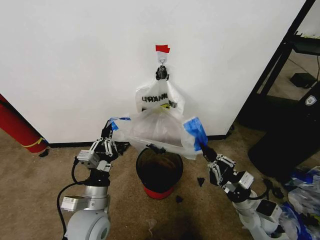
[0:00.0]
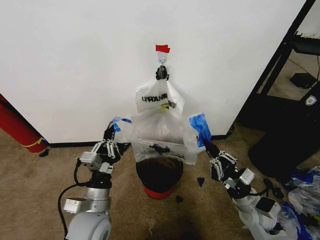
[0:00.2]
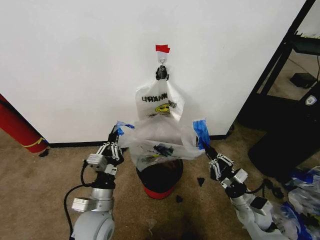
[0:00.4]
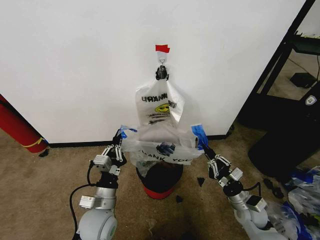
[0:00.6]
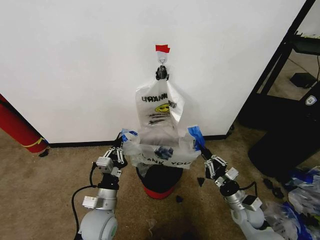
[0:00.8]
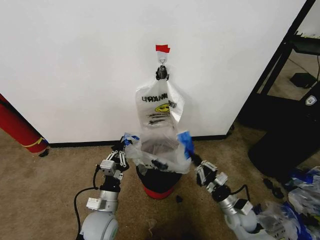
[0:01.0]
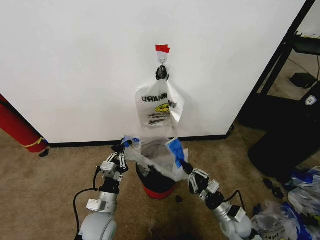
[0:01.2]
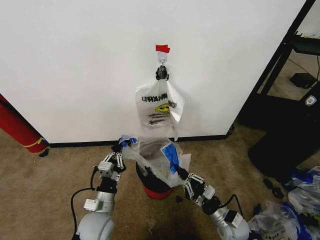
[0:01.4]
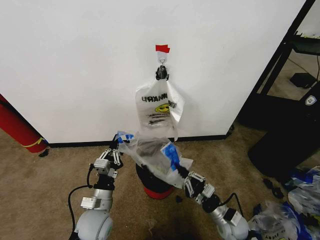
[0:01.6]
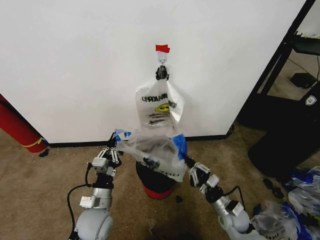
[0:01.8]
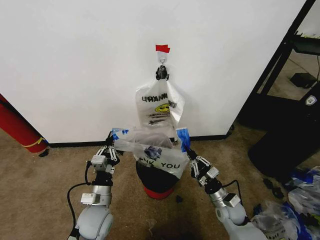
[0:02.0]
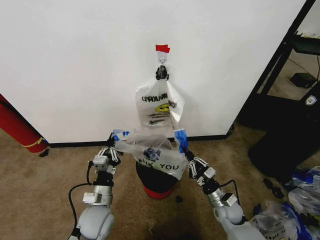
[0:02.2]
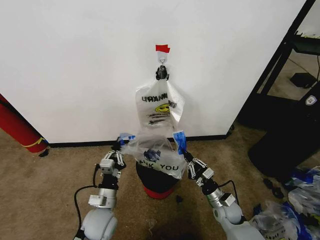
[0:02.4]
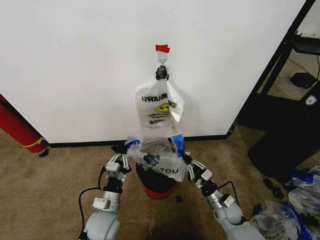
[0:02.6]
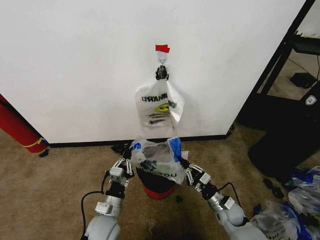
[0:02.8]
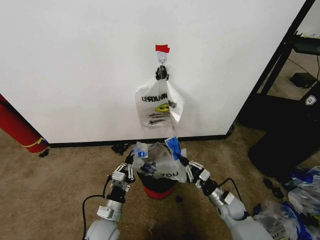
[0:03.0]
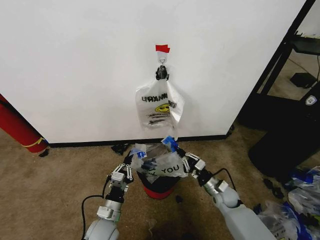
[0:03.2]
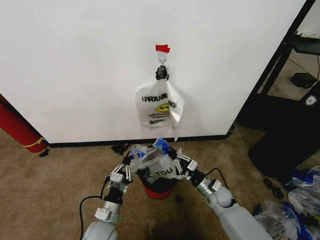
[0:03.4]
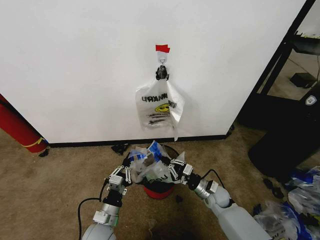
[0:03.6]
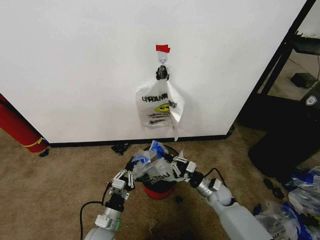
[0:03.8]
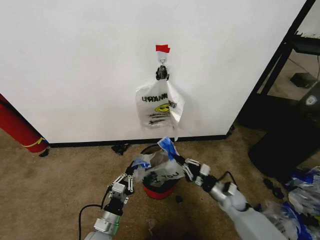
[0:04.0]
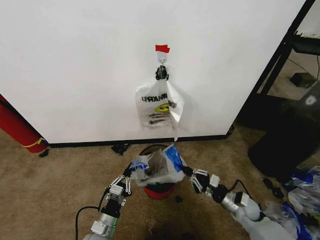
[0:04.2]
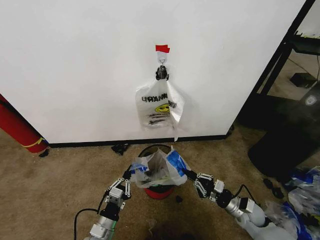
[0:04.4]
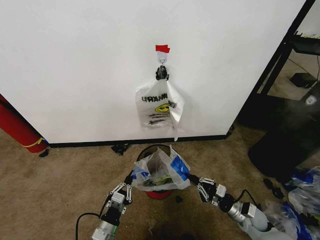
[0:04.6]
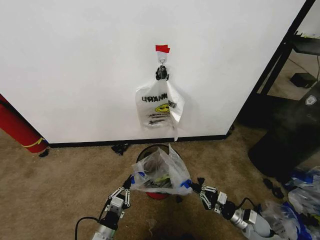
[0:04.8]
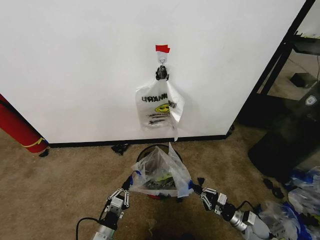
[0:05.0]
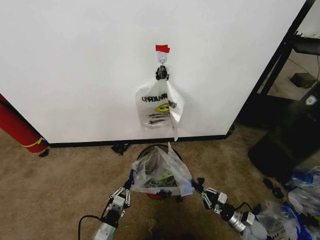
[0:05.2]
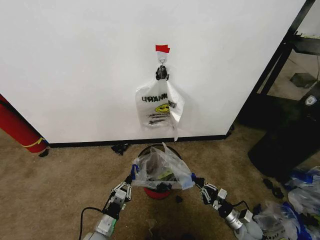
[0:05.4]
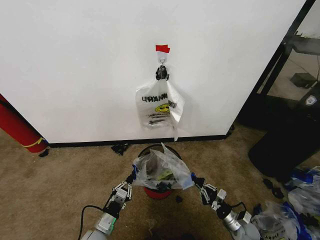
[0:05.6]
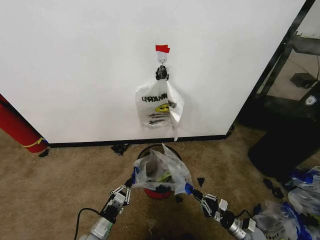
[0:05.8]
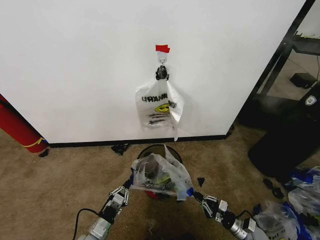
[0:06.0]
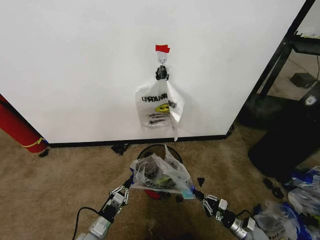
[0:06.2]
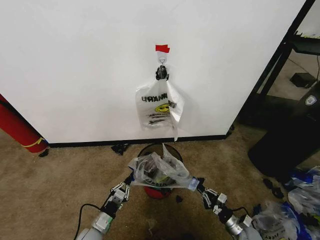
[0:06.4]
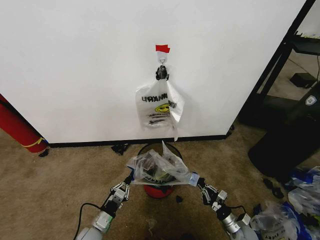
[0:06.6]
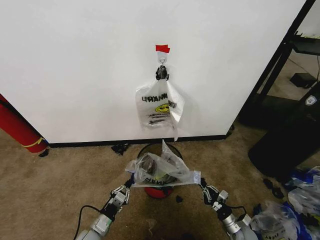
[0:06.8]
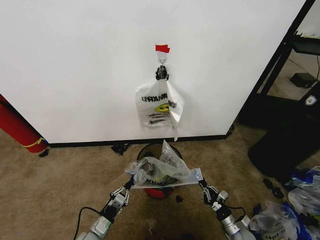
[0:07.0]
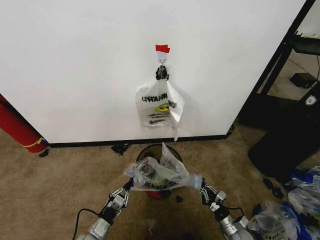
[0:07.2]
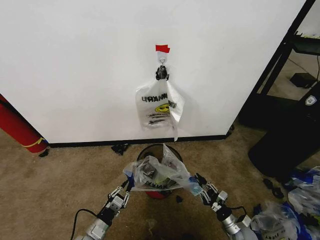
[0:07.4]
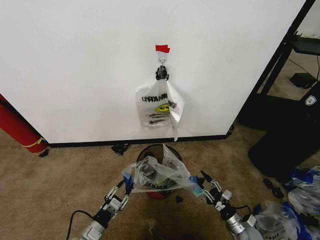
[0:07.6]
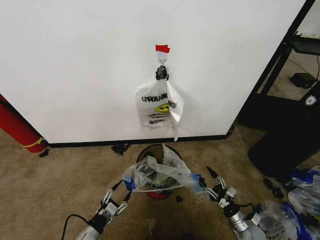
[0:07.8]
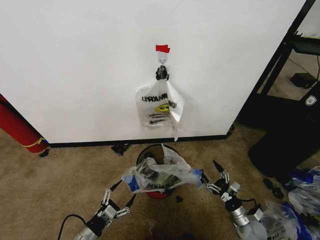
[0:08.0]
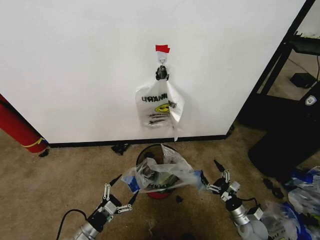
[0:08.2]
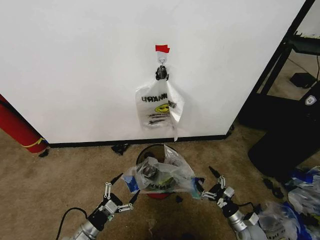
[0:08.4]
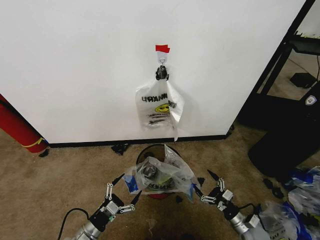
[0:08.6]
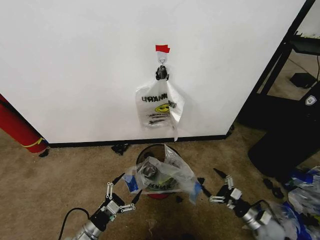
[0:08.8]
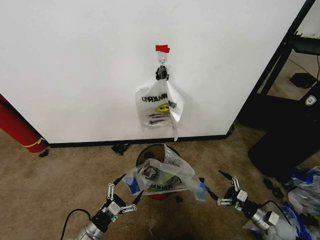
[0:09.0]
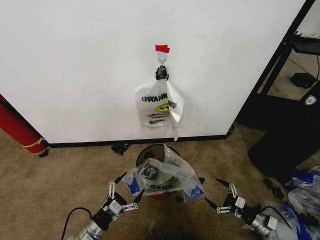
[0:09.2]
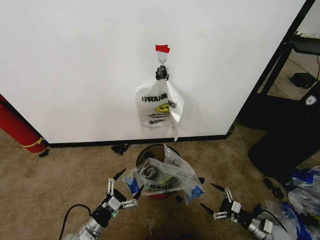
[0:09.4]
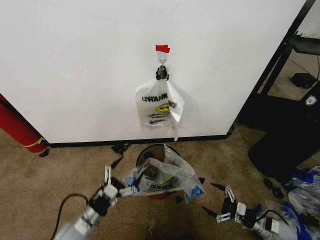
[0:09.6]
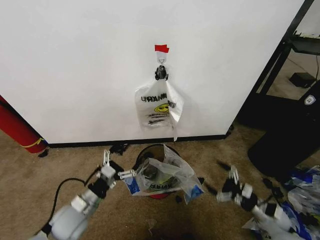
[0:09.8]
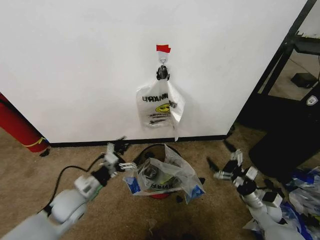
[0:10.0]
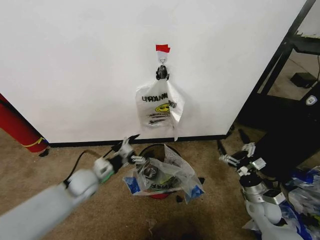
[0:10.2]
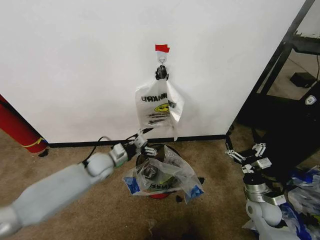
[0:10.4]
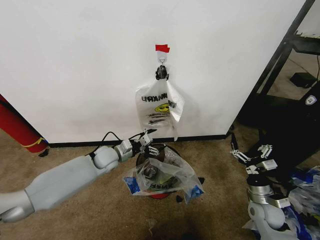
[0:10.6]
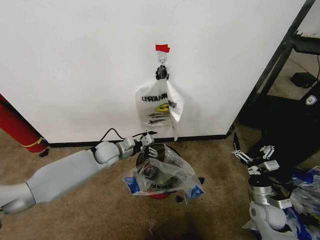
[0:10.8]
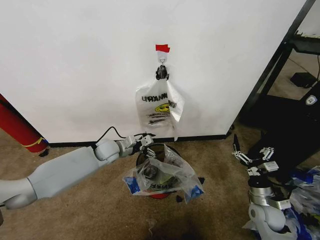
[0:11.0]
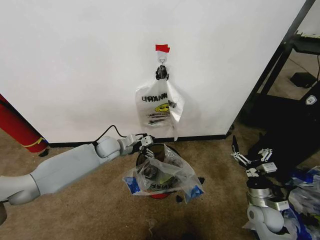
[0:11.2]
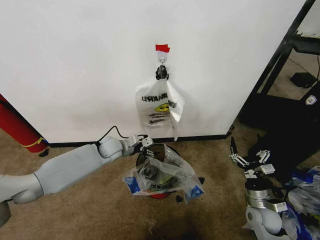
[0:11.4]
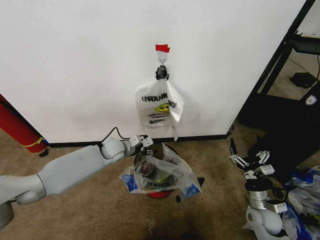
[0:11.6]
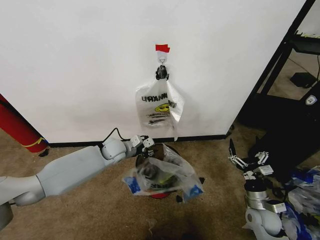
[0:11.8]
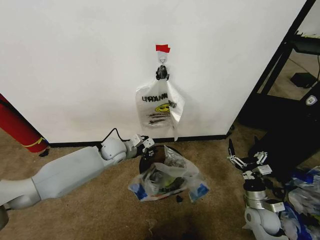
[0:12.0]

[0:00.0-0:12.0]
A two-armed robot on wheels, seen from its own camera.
Task of the whole recording: Pick up the garbage bag from the wall and place it over the trash bin.
0:00.0 to 0:01.6: Both grippers travel together downward, approximately 10 cm.
0:01.6 to 0:03.0: The right gripper travels forward by approximately 5 cm, while the left gripper moves downward, about 5 cm.
0:03.0 to 0:04.4: The left gripper shifts by roughly 5 cm, while the right gripper travels to the right by some 5 cm.
0:04.4 to 0:06.0: The left gripper travels downward by roughly 5 cm. Meanwhile the right gripper moves downward and backward, about 15 cm.
0:06.0 to 0:07.6: The left gripper opens up, while the right gripper opens.
0:07.6 to 0:09.0: The left gripper opens up, while the right gripper travels to the right by some 10 cm, and opens its fingers.
0:09.0 to 0:10.4: The right gripper goes roughly 15 cm upward and to the left; the left gripper goes some 30 cm forward and upward.
0:10.4 to 0:12.0: The left gripper changes place by about 5 cm, and closes up.

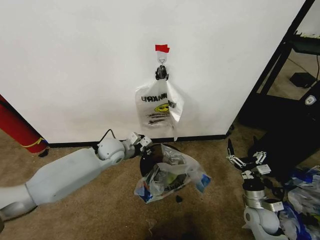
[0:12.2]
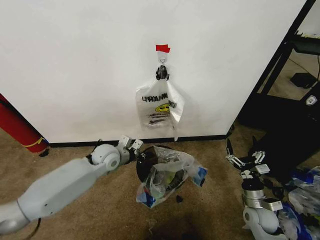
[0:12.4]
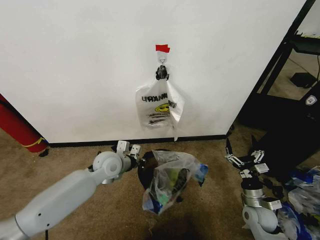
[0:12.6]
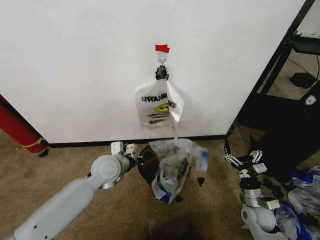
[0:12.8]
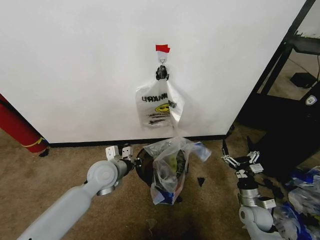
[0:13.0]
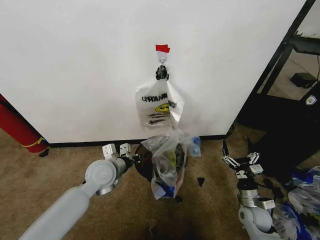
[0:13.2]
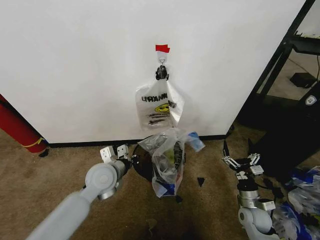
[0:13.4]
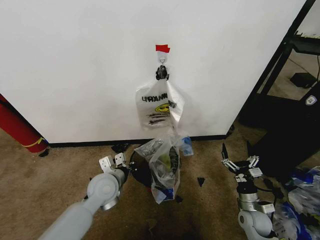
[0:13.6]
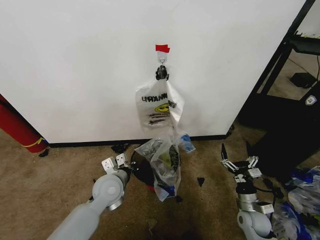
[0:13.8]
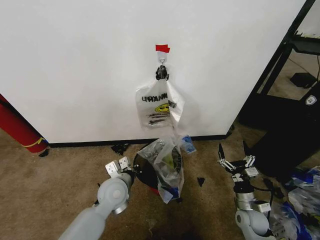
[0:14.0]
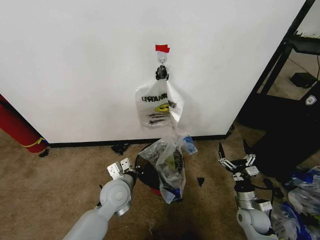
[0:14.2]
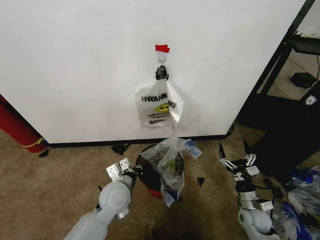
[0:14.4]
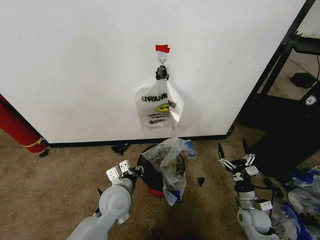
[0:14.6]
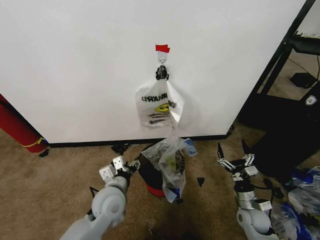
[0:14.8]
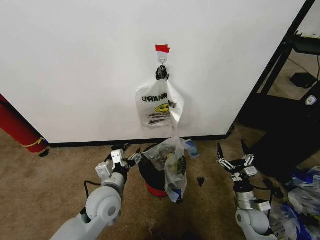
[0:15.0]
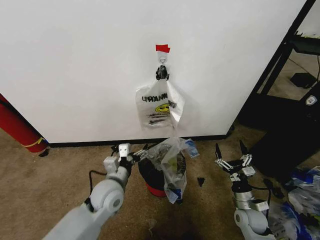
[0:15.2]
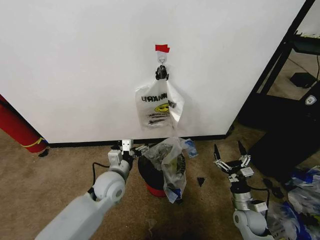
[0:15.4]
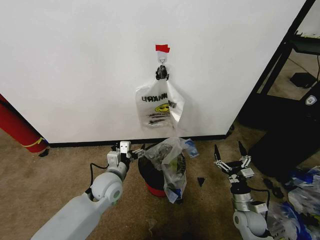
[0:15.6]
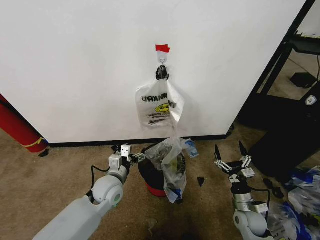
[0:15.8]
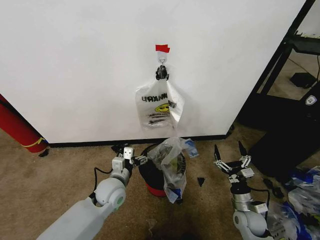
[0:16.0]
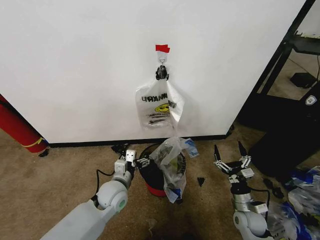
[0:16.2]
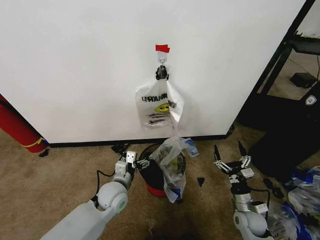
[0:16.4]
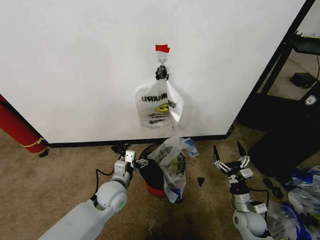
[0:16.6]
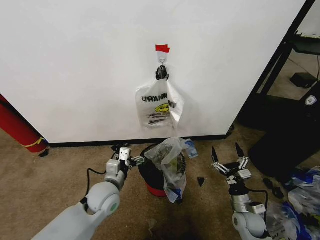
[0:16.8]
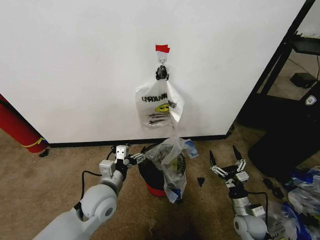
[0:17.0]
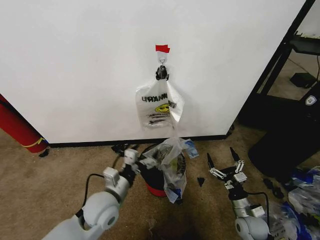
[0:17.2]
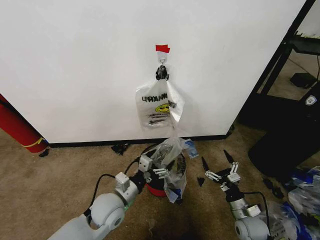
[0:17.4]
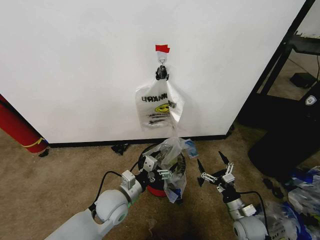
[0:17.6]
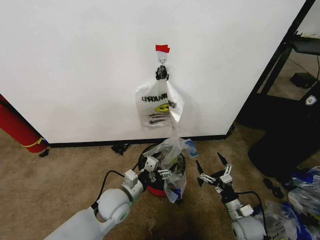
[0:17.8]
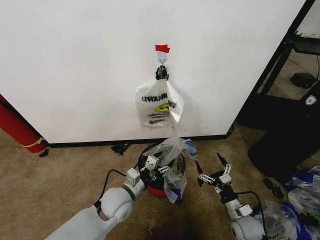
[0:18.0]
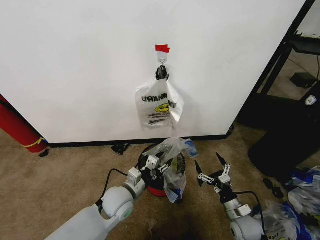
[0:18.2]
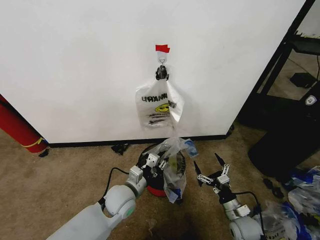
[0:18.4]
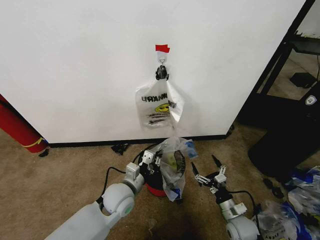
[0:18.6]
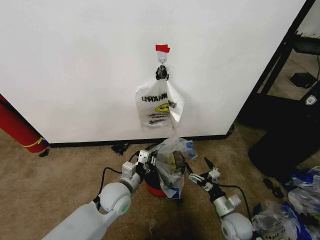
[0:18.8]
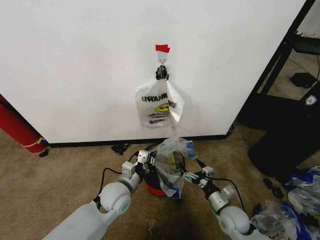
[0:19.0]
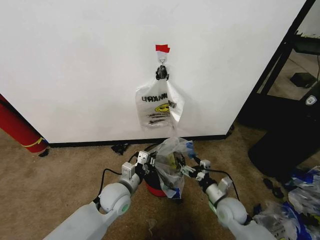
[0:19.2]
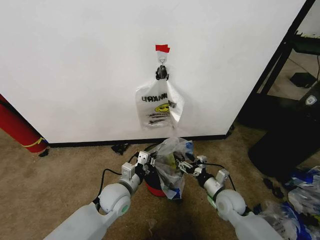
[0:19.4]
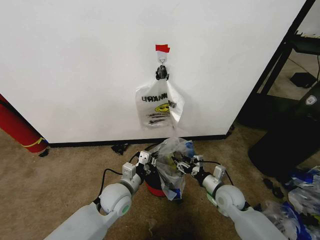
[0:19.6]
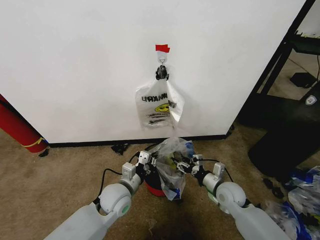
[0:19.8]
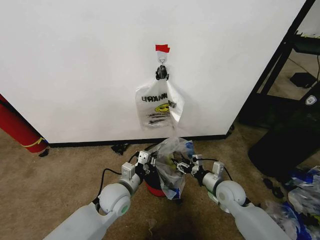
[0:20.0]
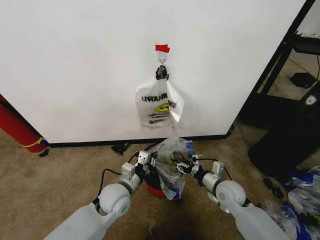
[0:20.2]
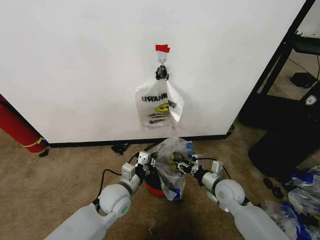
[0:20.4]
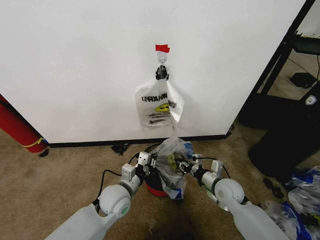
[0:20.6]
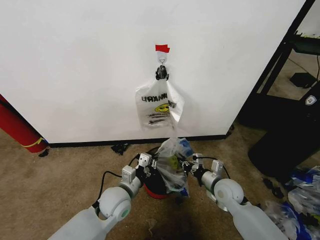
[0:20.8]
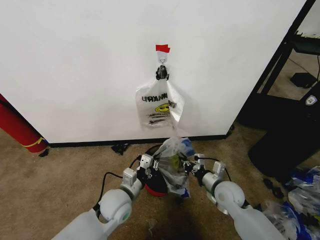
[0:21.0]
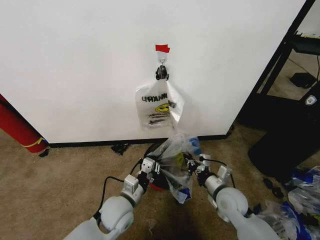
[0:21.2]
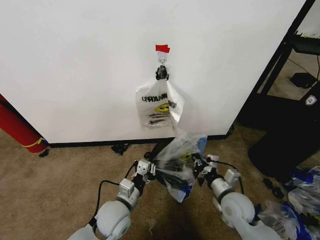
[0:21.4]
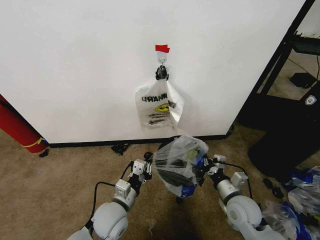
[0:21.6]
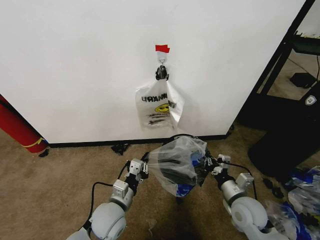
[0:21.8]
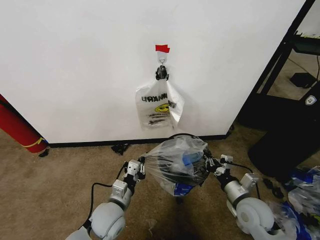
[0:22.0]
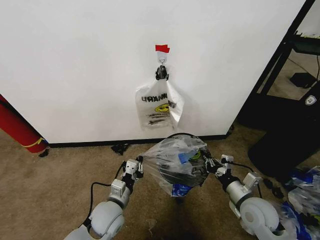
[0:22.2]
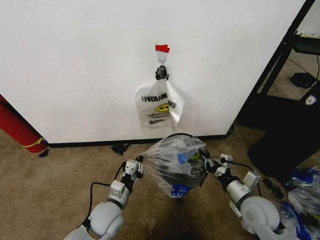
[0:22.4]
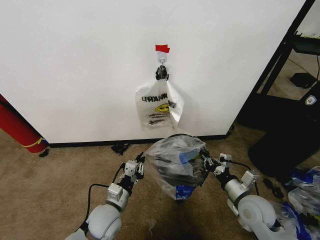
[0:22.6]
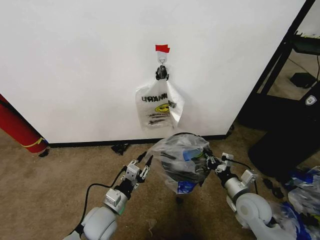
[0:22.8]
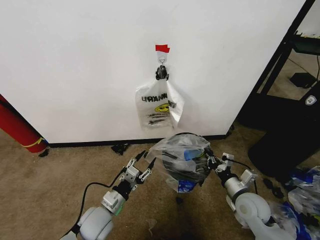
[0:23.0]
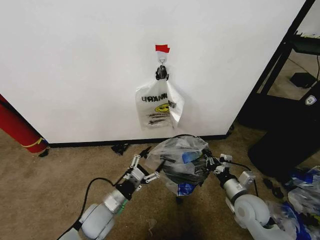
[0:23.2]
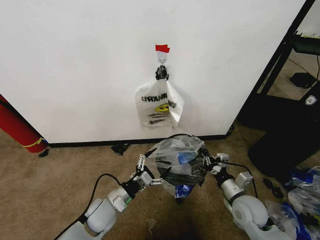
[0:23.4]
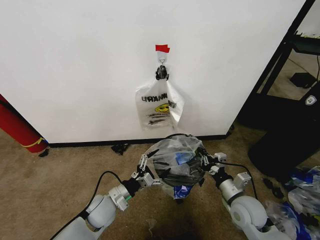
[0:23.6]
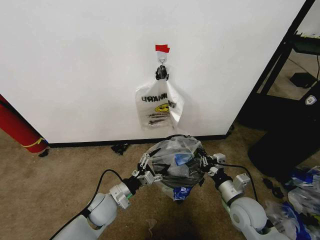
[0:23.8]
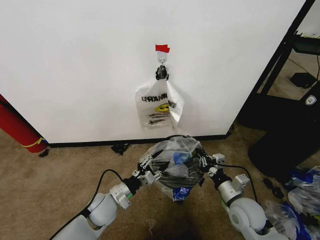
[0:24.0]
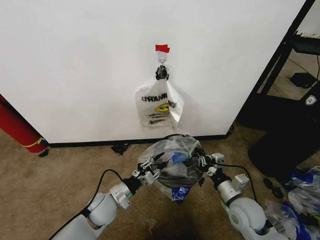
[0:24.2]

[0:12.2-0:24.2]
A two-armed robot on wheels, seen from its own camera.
Task of the whole recording: Pick up the garbage bag from the wall and place it over the trash bin.
0:12.2 to 0:13.8: The left gripper moves backward, about 15 cm.
0:13.8 to 0:15.2: The left gripper opens up.
0:15.2 to 0:16.6: The left gripper shifts by approximately 5 cm.
0:16.6 to 0:18.2: The left gripper closes its fingers.
0:18.2 to 0:19.8: The left gripper closes up. The right gripper is displaced forward and upward by about 10 cm, and closes its fingers.
0:19.8 to 0:21.2: The right gripper closes up.
0:21.2 to 0:22.6: The right gripper is displaced to the right by approximately 5 cm.
0:22.6 to 0:24.2: The left gripper ends up approximately 5 cm from where it was, and opens, then closes once more.
